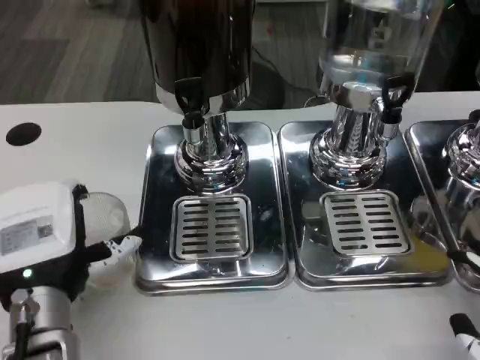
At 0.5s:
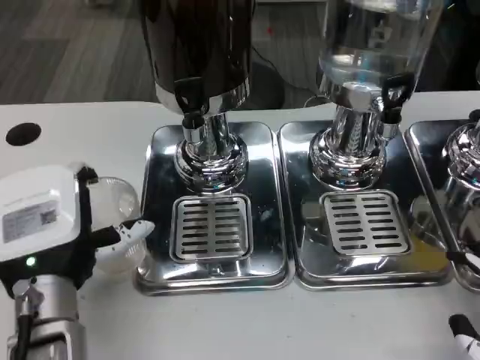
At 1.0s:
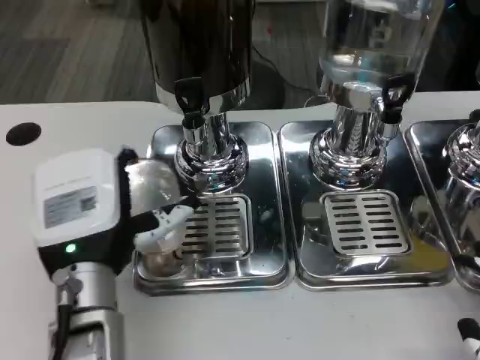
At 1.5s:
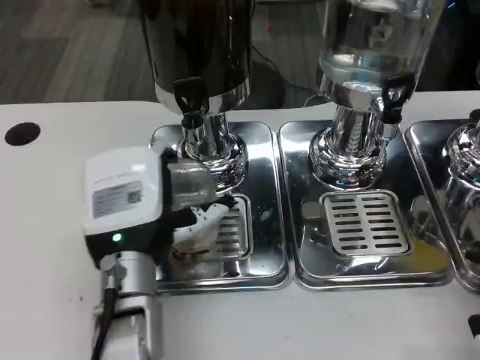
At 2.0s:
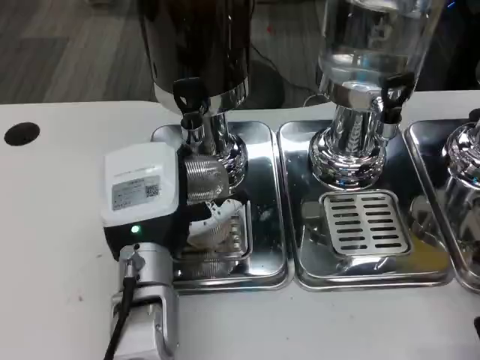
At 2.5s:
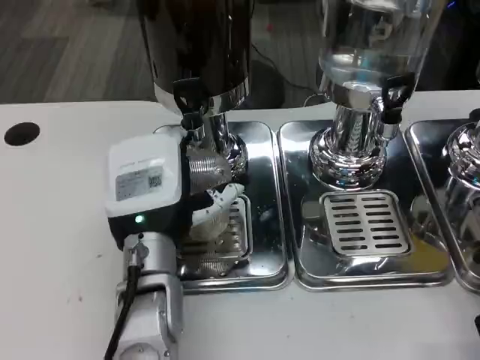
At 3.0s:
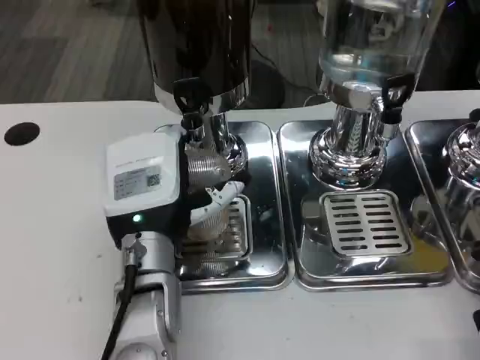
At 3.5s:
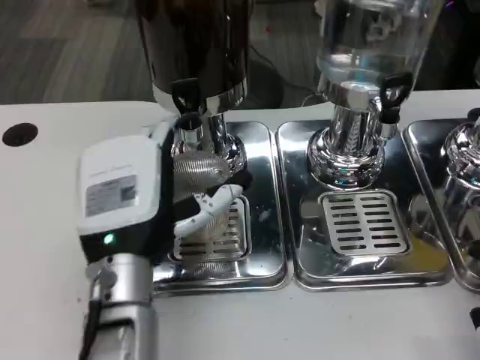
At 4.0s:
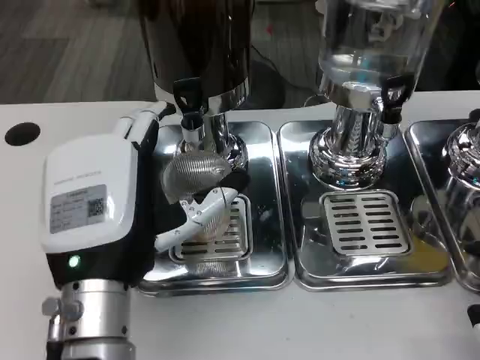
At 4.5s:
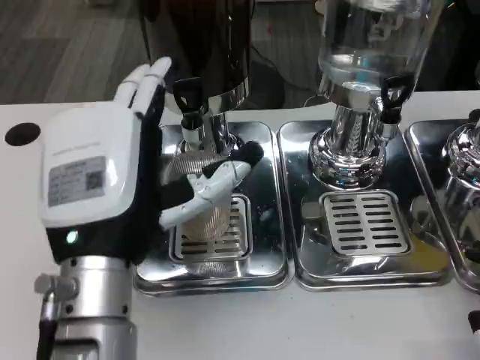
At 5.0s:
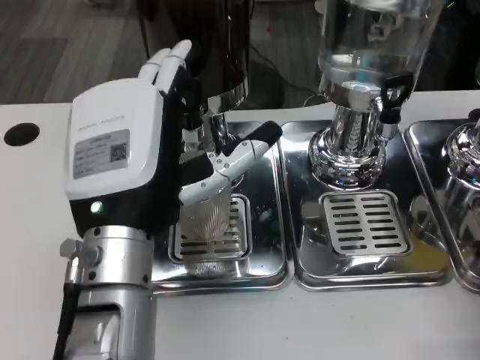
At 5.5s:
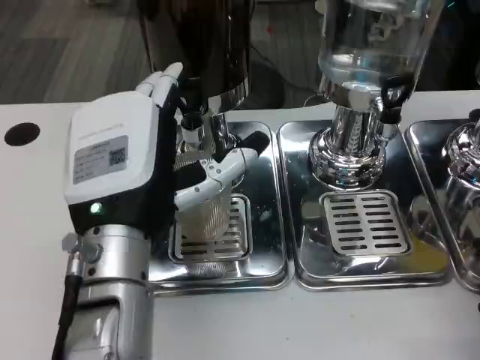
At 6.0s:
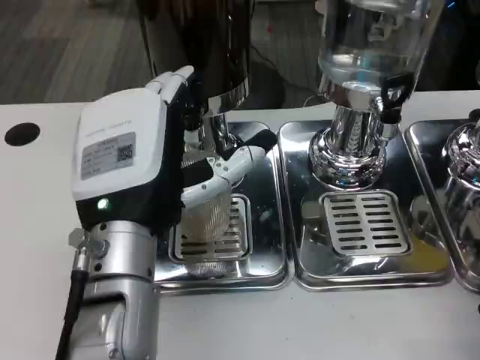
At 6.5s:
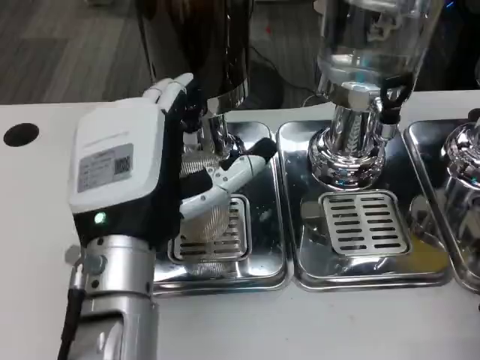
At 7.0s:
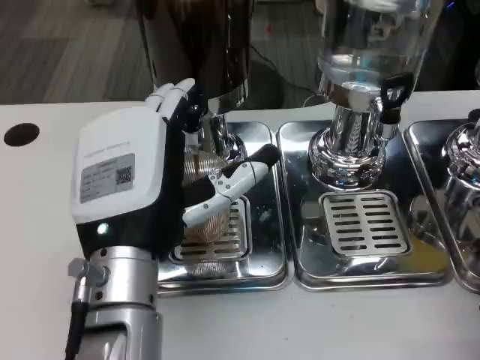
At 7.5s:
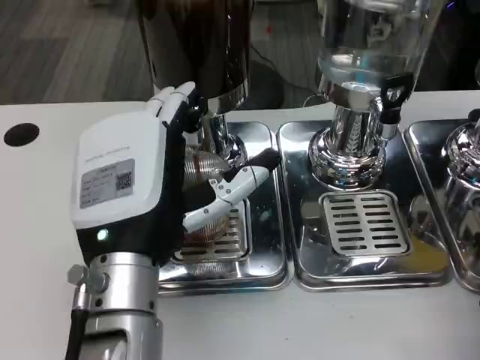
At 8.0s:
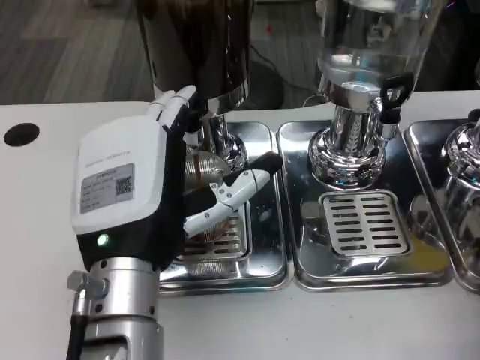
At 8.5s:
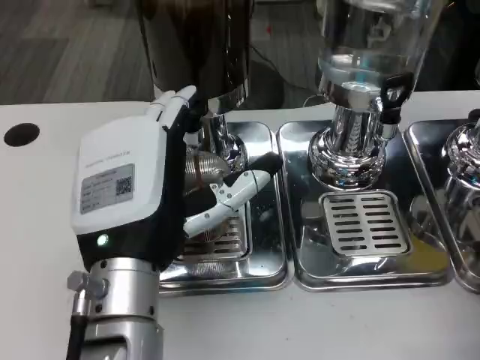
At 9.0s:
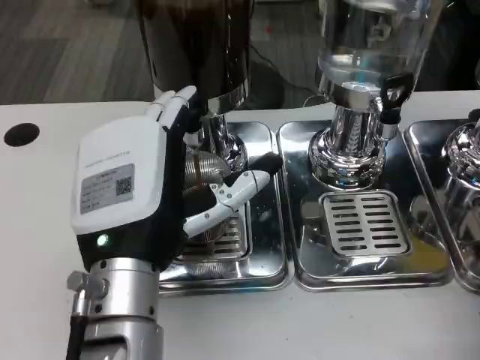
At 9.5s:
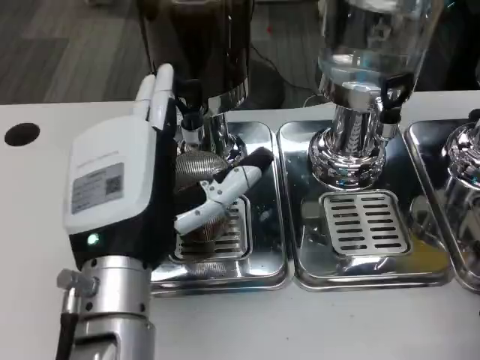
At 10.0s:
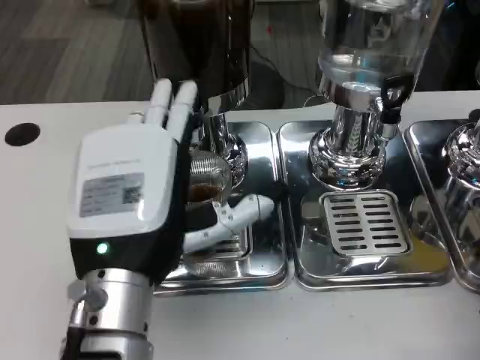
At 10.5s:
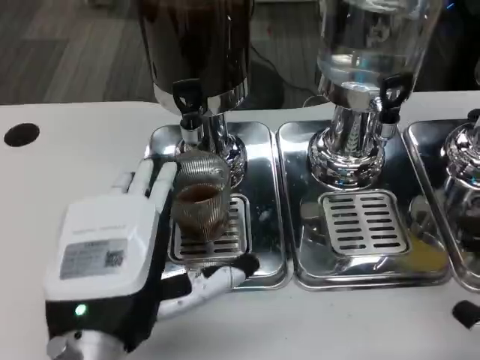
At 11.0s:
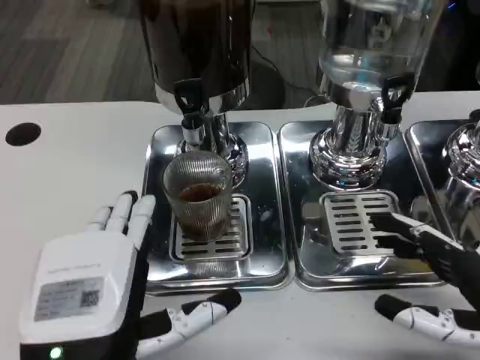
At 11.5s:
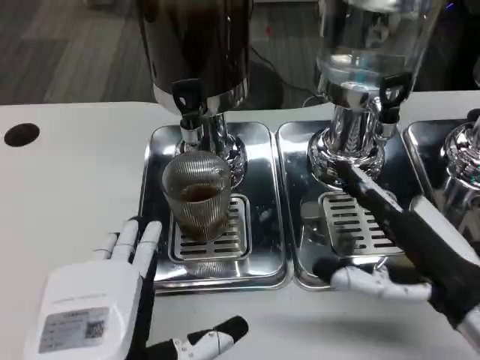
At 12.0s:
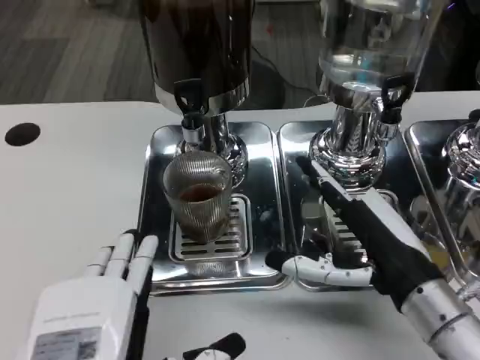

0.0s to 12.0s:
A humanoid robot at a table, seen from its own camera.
Task of the whole recording: Grasp the cup under the faucet to collect the drink, then remove the cup.
0.0s to 2.0s: The left hand heads to the right, covering some 5 cm.
2.0s to 4.0s: The left hand shifts roughly 10 cm backward and upward.
4.0s to 10.0s: The hands stay close to where they were, moving slightly.
10.0s to 12.0s: The left hand is displaced backward by roughly 10 cm; the right hand moves to the left and forward, roughly 20 cm.

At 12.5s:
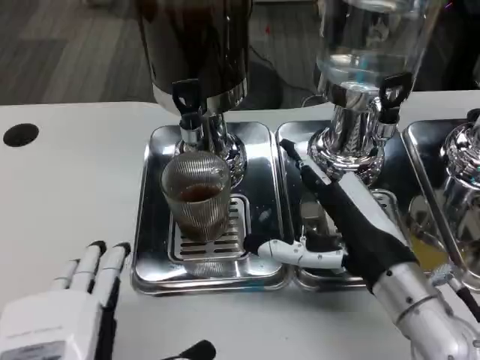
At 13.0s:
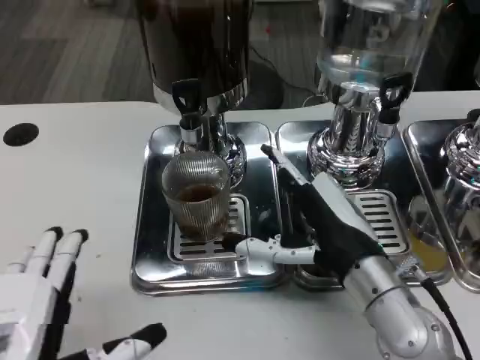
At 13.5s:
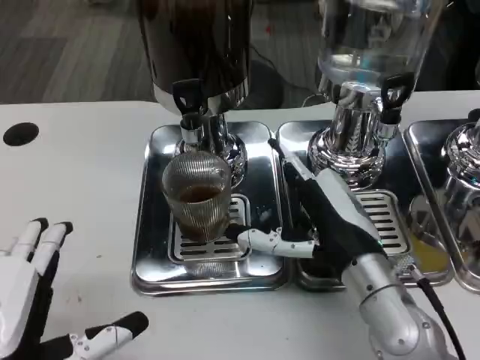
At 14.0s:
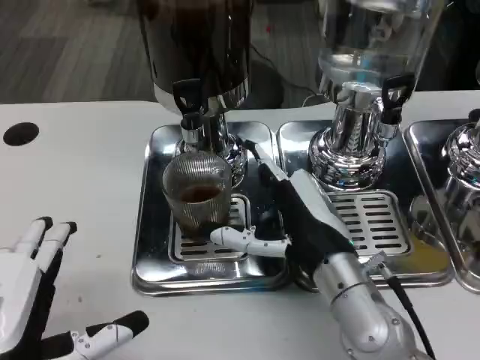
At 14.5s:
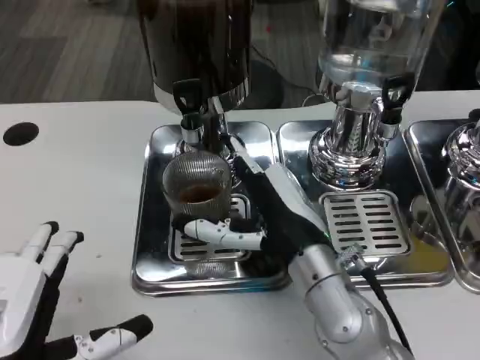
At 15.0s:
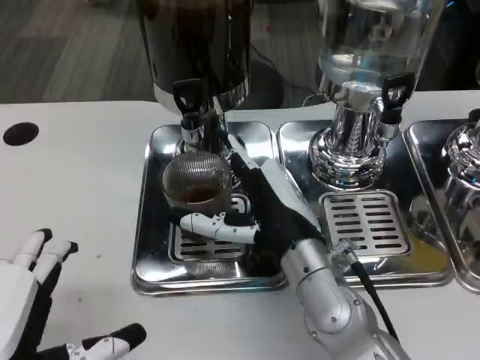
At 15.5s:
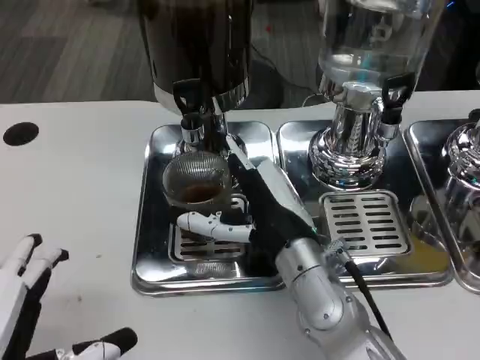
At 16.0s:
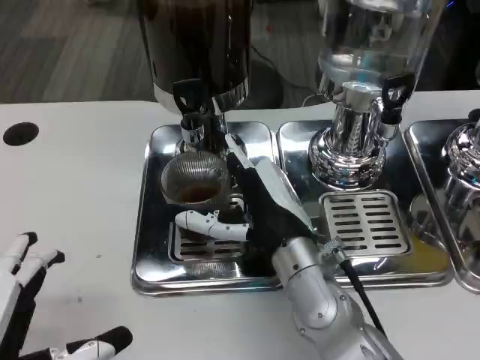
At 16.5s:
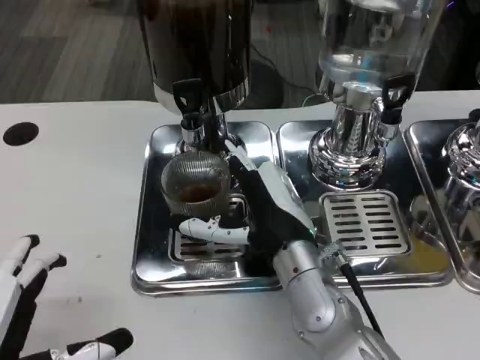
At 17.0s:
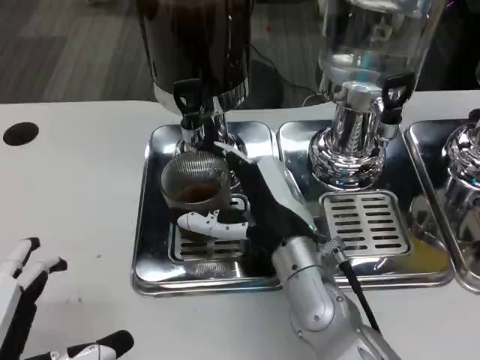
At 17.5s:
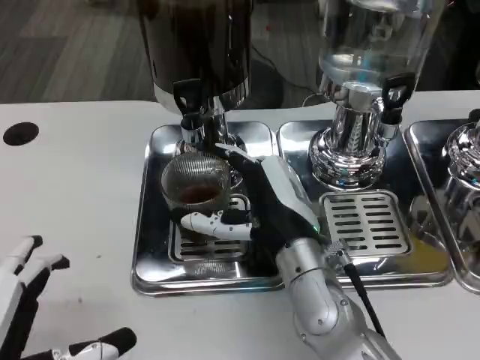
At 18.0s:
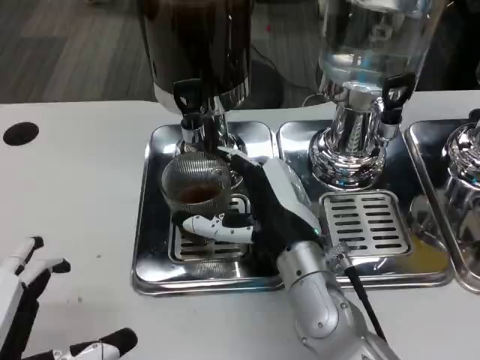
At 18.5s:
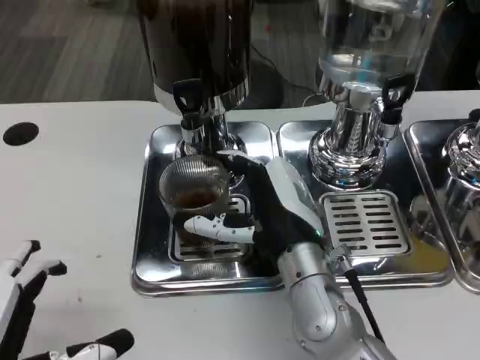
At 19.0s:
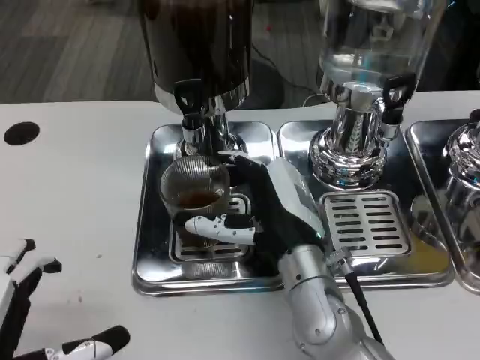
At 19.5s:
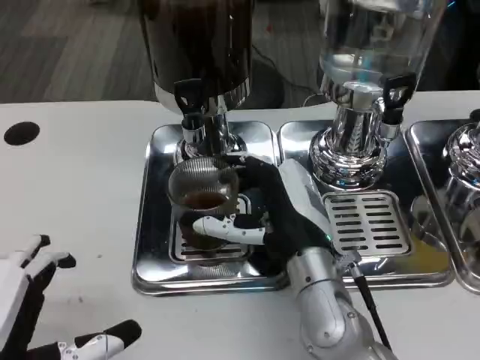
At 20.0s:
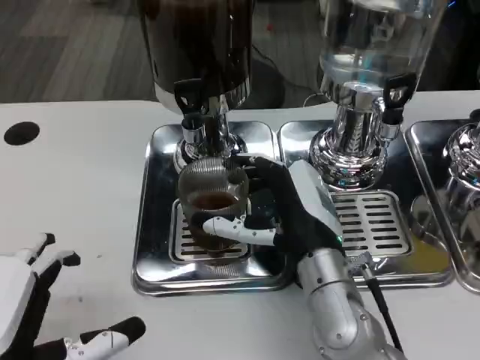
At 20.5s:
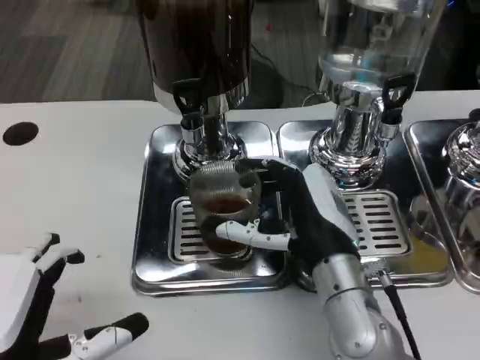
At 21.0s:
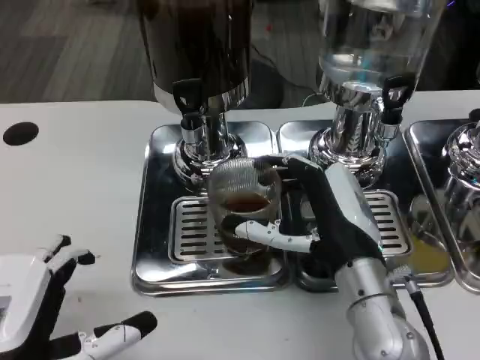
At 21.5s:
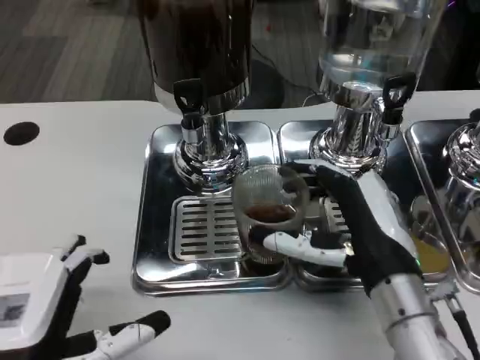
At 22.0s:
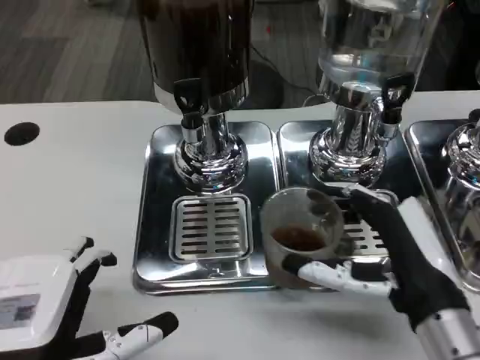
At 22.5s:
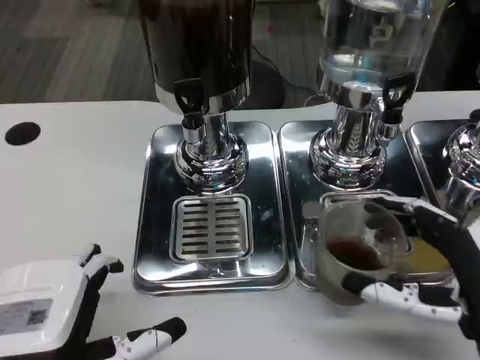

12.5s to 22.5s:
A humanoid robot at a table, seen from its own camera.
Task of the whole recording: Grasp the cup under the faucet to collect the drink, then remove the cup.
12.5s to 14.5s: The two hands go approximately 5 cm to the left.
14.5s to 20.5s: The hands make only small movements.
20.5s to 22.5s: The right hand is displaced to the right and backward by roughly 15 cm.

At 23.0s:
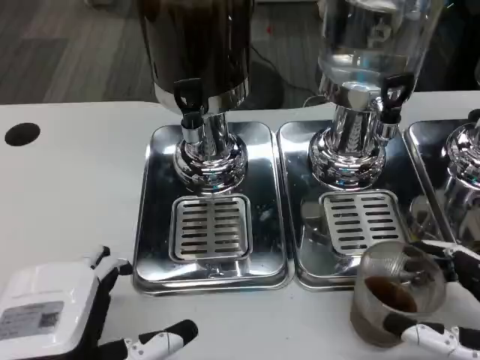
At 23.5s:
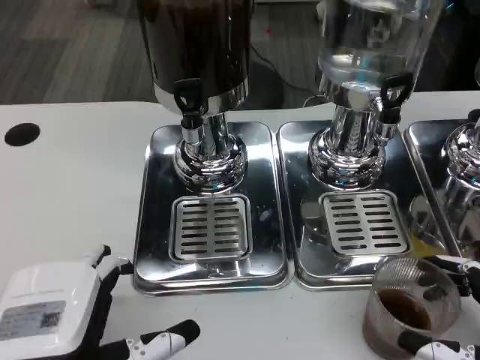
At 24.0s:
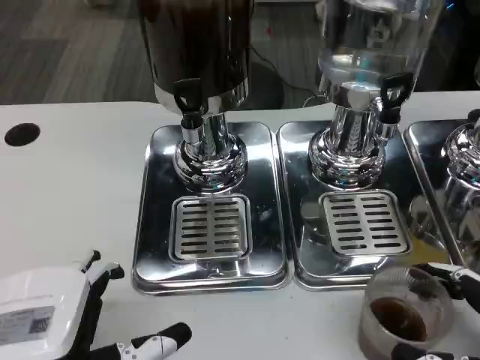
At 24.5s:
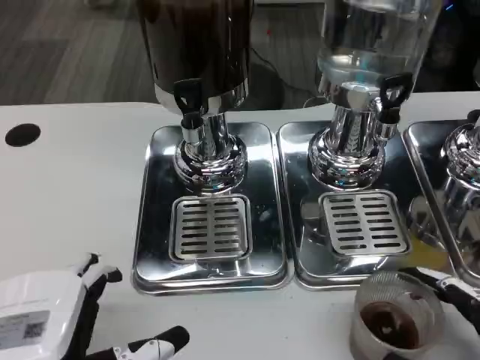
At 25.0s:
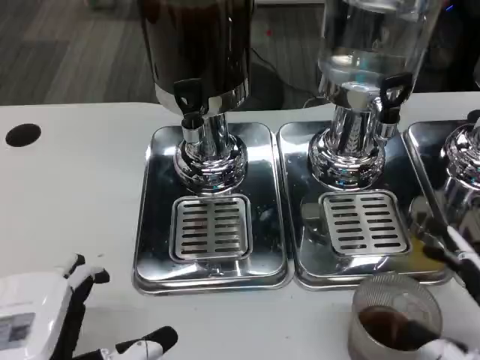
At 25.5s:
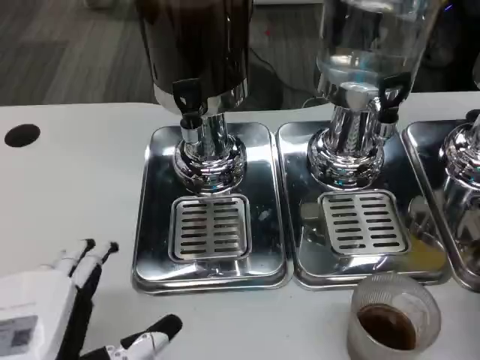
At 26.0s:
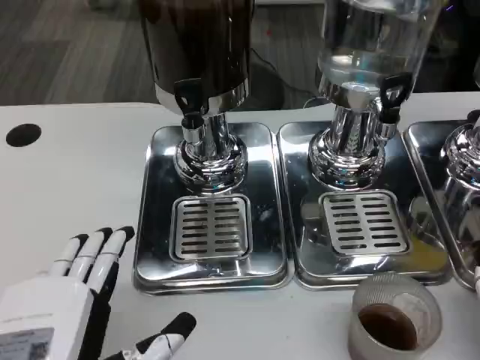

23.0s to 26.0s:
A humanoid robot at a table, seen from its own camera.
Task of the whole recording: Grasp the cup under the faucet to collect the drink, then remove the cup.
23.0s to 24.5s: There are only small adjustments of the hands.
24.5s to 26.0s: The right hand changes place by approximately 5 cm.

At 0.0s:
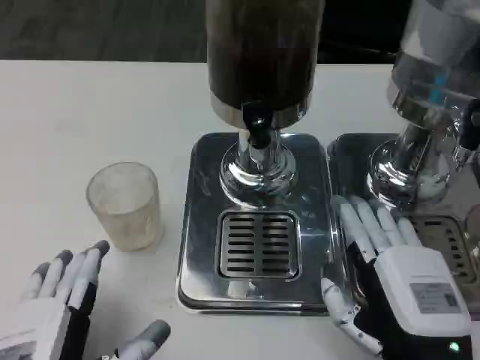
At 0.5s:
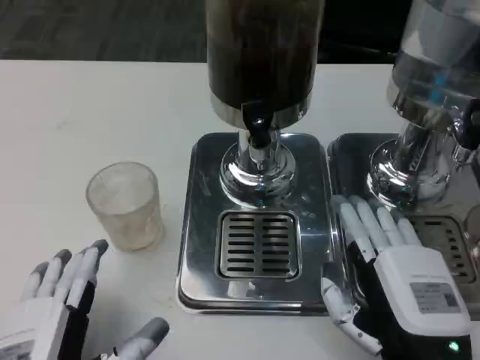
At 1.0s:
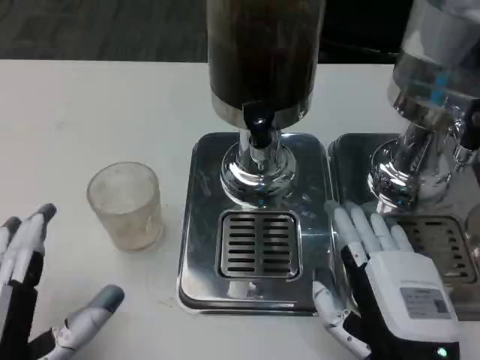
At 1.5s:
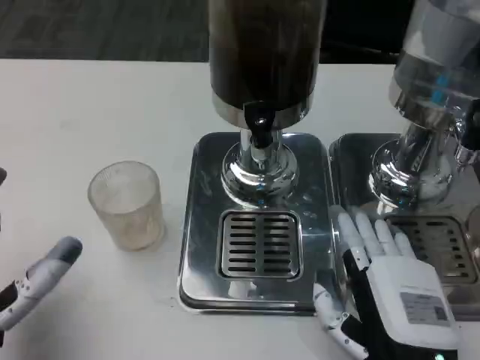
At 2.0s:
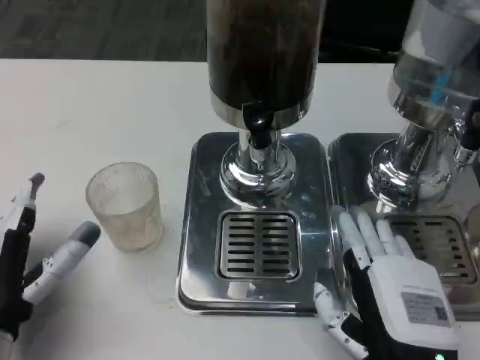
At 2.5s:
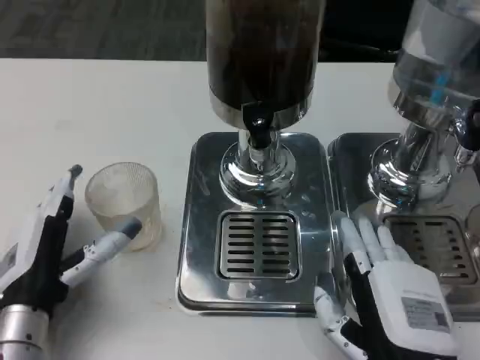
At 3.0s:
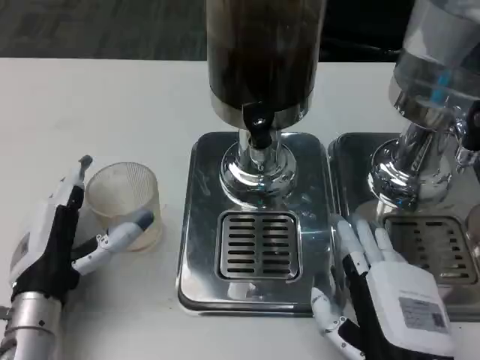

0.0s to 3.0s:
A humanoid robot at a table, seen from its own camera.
Task of the whole recording: Grasp the cup under the faucet to collect the drink, then remove the cup.
0.0s to 1.5s: The left hand moves to the left and forward, some 5 cm.
1.5s to 3.0s: The left hand shifts roughly 10 cm forward.
